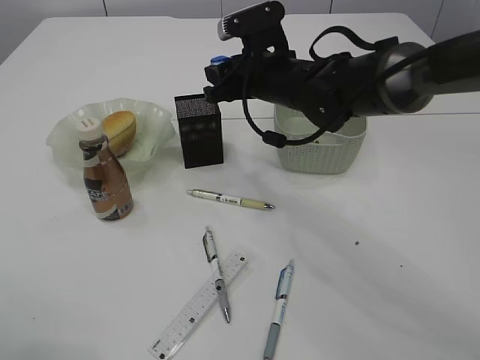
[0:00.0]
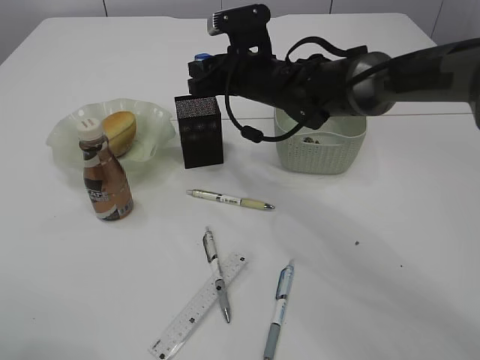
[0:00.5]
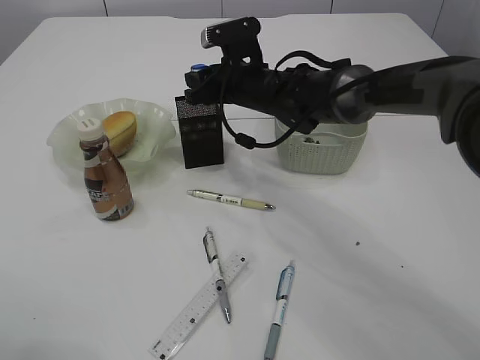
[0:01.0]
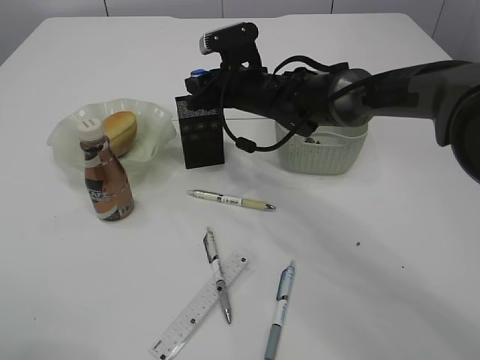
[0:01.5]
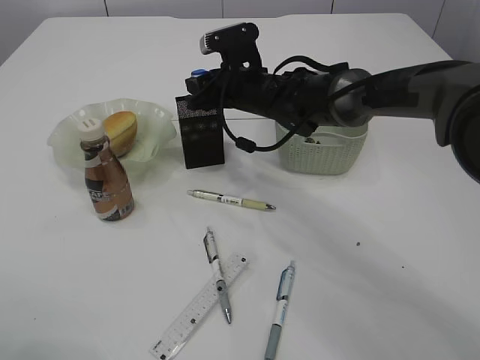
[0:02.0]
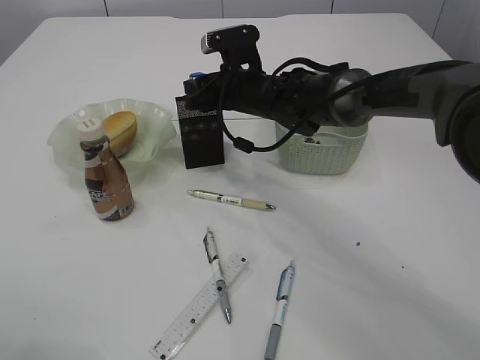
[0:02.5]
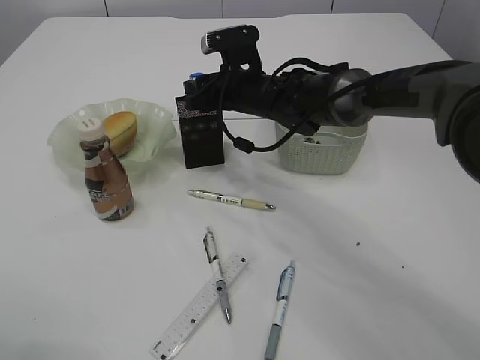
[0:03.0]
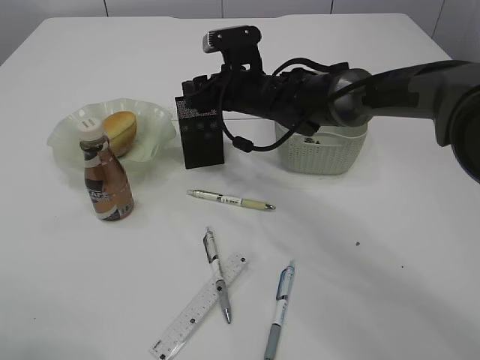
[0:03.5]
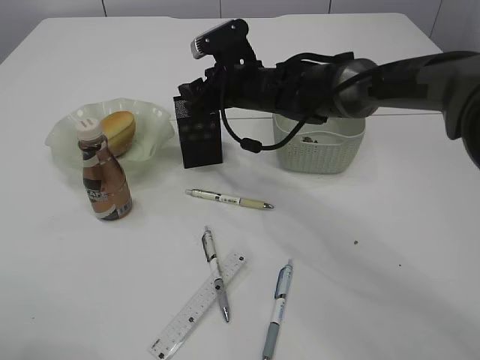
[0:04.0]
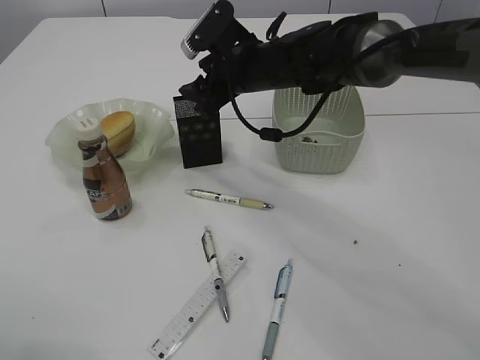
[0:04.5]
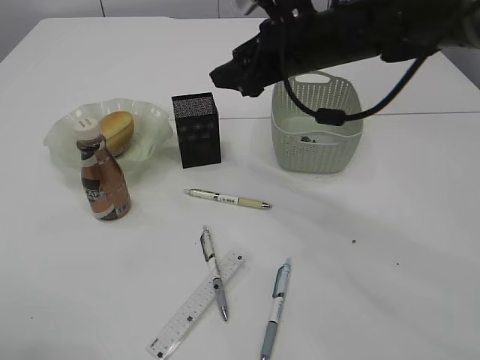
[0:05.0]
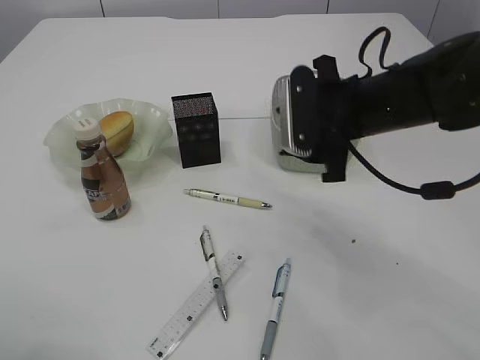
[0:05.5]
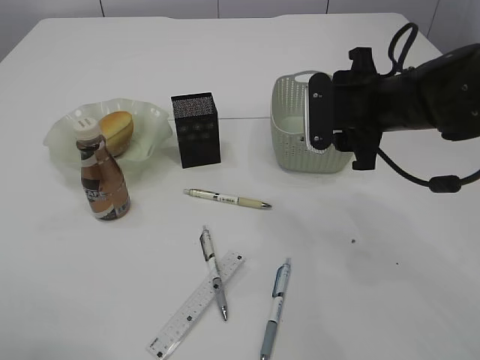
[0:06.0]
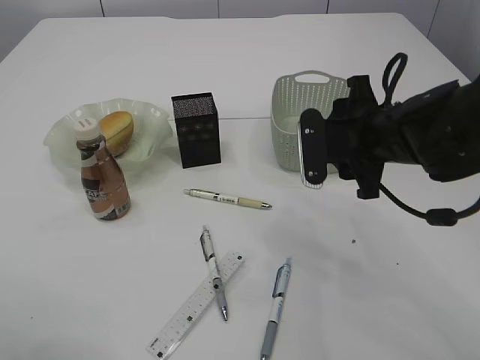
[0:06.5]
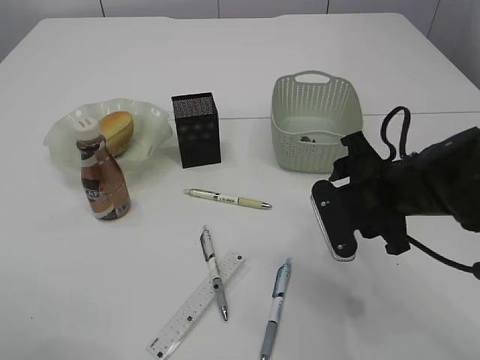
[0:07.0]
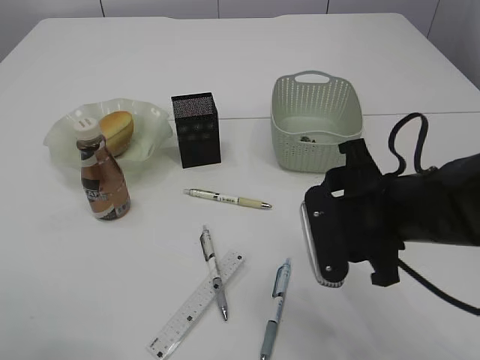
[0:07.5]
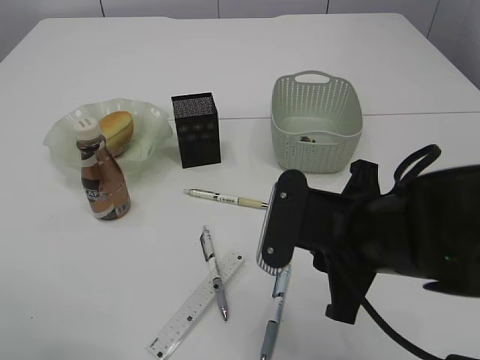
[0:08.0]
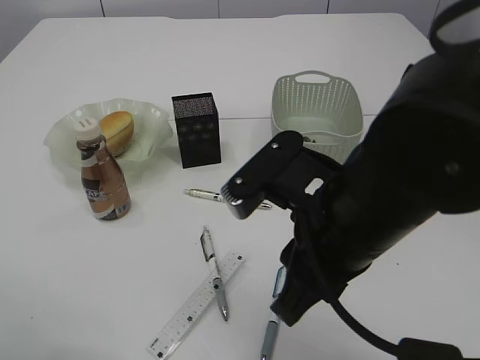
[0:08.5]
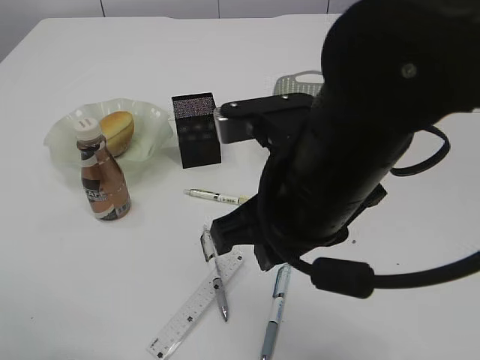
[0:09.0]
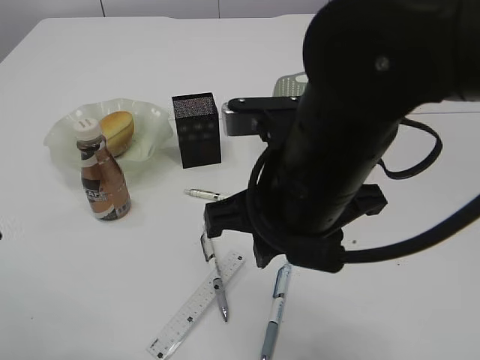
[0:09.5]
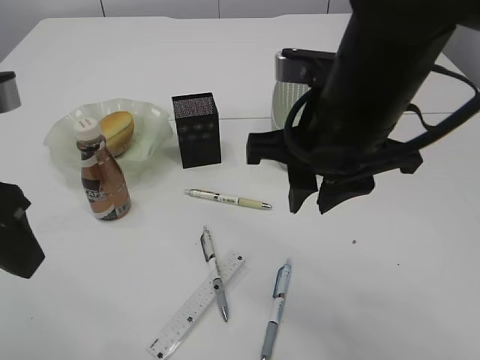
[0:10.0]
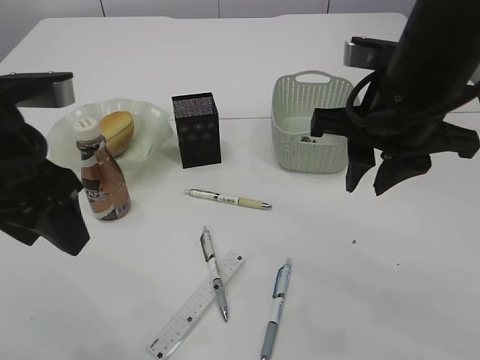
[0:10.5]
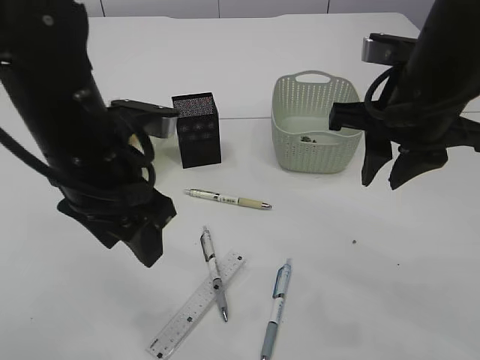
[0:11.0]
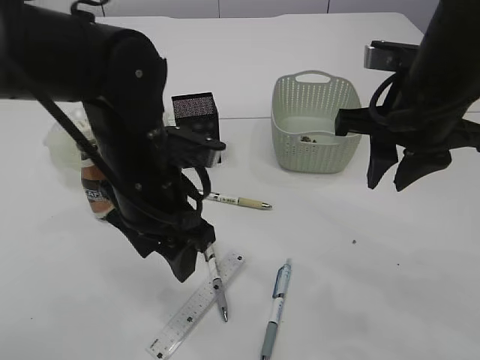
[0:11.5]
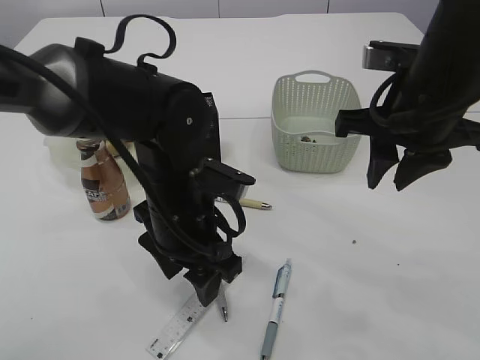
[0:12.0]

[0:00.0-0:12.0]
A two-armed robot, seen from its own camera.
Step, 0.0 to 4.5 s: Place the blue pencil sharpener into the pen holder.
0.0 to 2.0 s: The right gripper shifts by some 5 cm.
2.0 to 4.0 s: The grippers make only small movements.
4.0 to 6.0 s: The right gripper travels to the right and backward by roughly 20 cm.
6.0 to 8.0 s: The right gripper heads backward, covering approximately 15 cm, and closes up.
8.0 to 10.0 s: The right gripper moves upward, roughly 10 cm.
10.0 to 12.0 s: The left gripper travels to the right, downward and forward by roughly 25 cm. The right gripper travels to the right by about 10 cm.

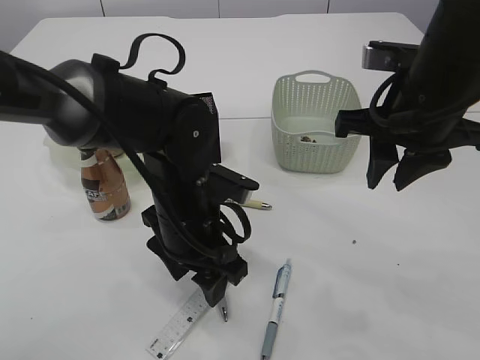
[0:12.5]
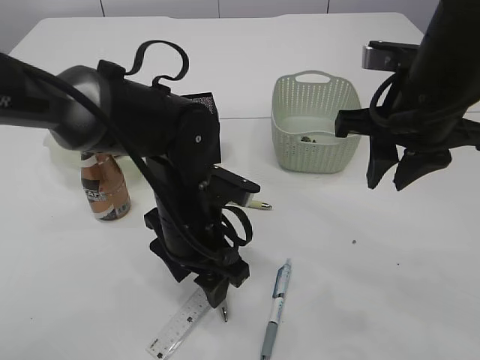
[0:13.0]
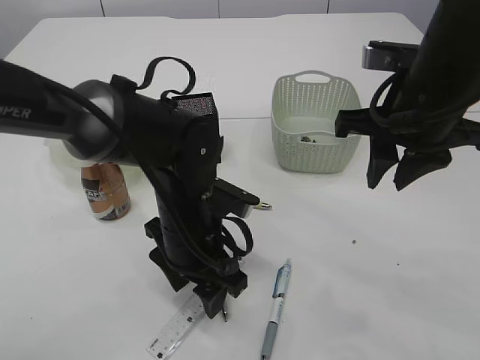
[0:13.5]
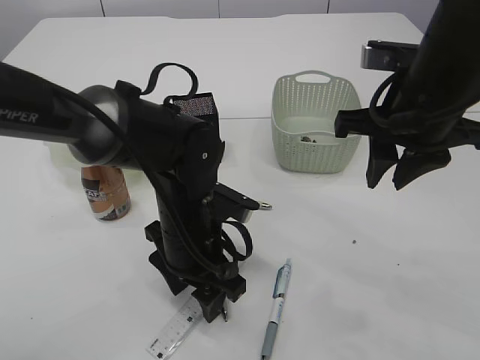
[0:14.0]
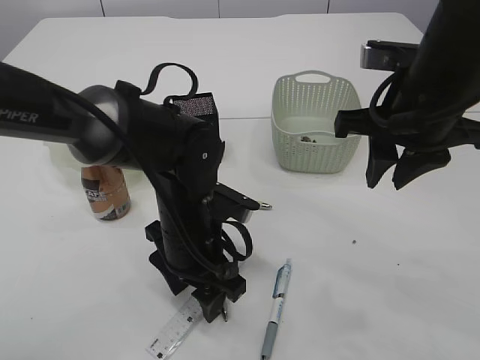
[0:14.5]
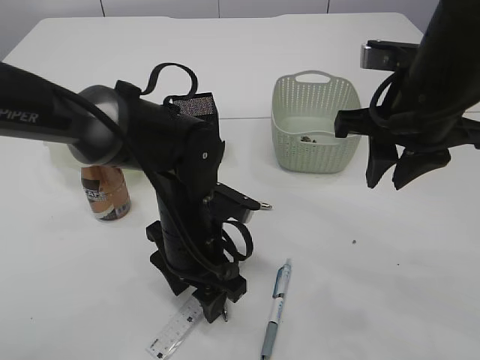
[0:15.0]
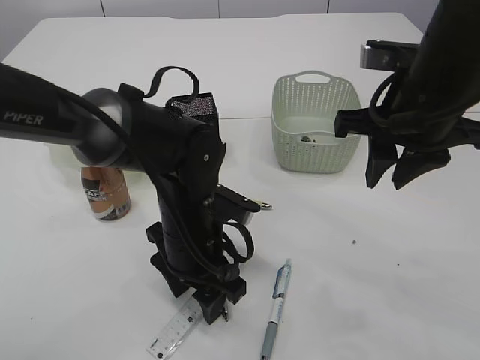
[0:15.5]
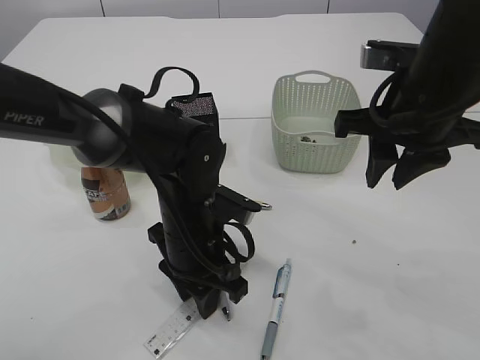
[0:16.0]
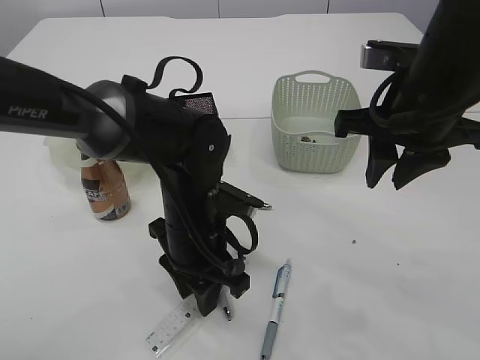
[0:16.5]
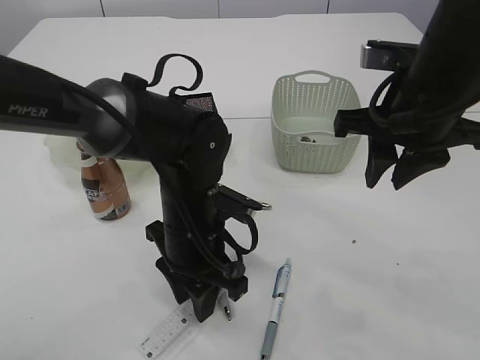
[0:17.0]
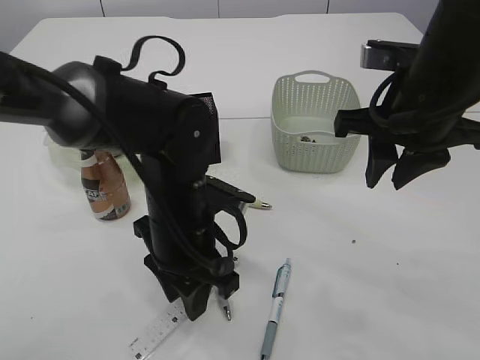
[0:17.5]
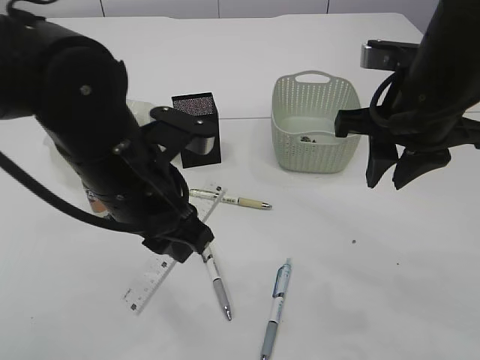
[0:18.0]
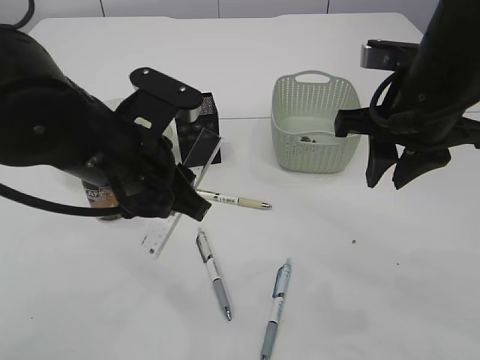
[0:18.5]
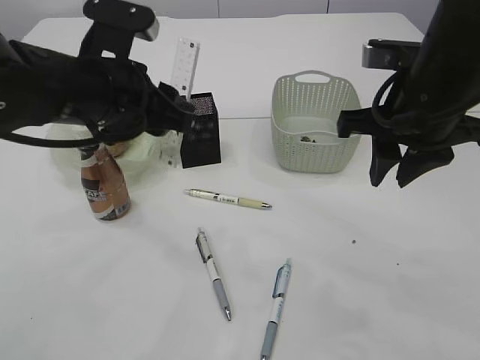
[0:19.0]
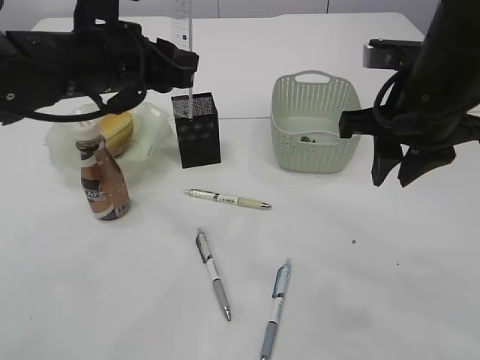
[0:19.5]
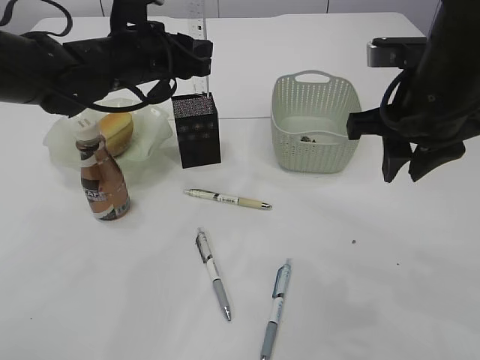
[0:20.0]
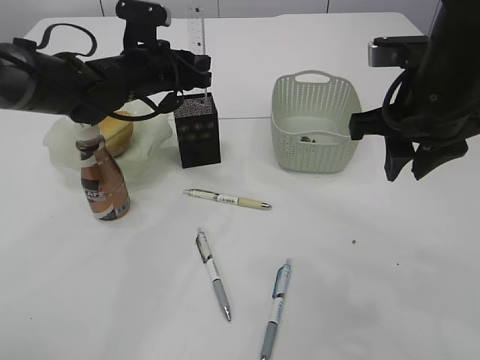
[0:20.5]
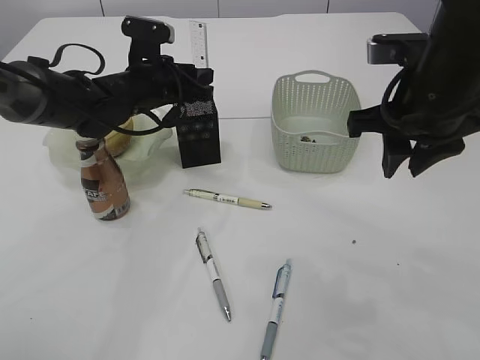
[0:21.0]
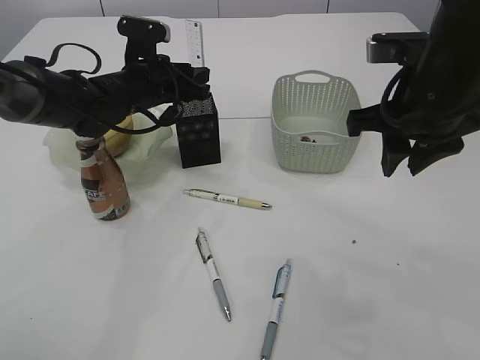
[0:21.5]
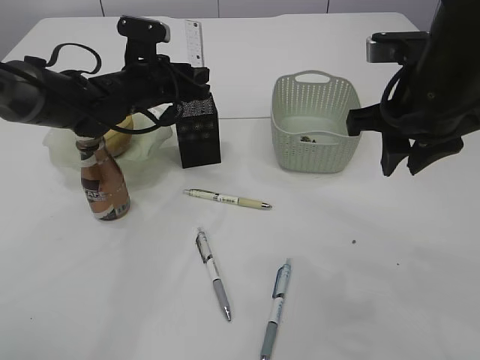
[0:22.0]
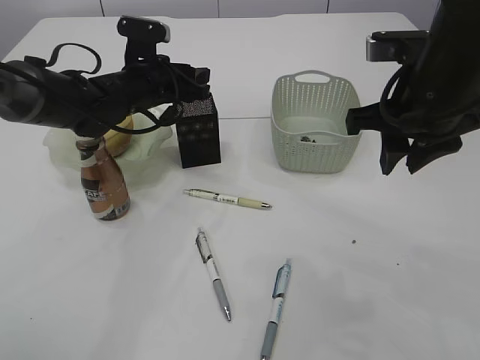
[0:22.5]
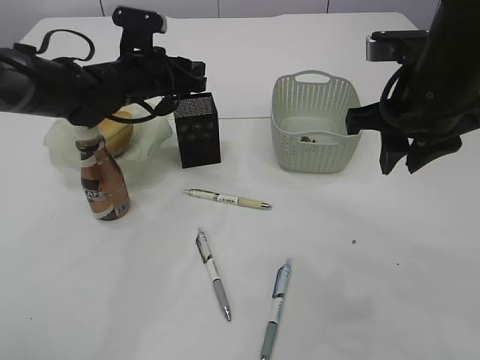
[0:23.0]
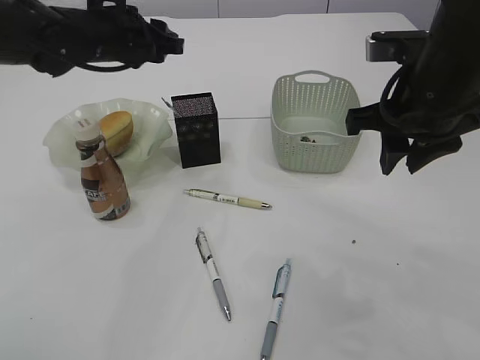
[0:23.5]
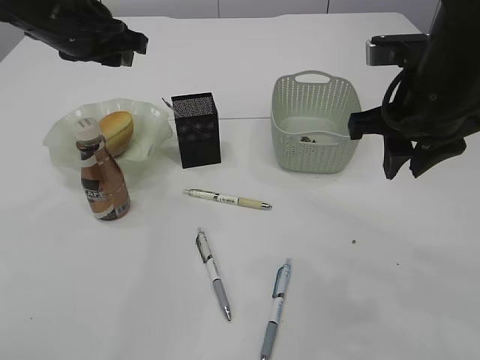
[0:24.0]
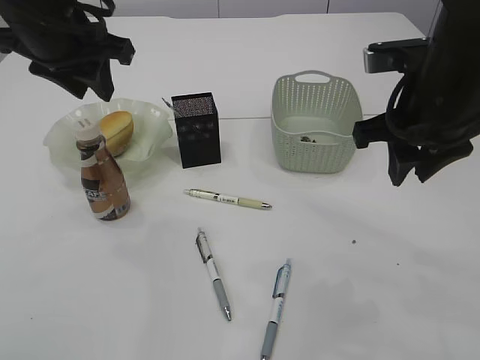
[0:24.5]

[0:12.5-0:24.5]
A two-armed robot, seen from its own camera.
Step, 12.5 to 18.0 s: pick up the ruler.
Step, 18.5 to 23.5 s: Place the ruler into the pen holder.
12.5 to 14.5 s: There are only small adjustments of the grippers.
14.5 to 16.5 s: The left gripper closes.
16.5 to 18.5 s: The left gripper goes roughly 10 cm upward and to the left.
18.5 to 20.5 s: The left gripper moves forward, about 20 cm.
20.5 to 22.5 s: The grippers move only a little.
22.5 to 24.5 s: The left gripper moves upward and backward, some 15 cm.

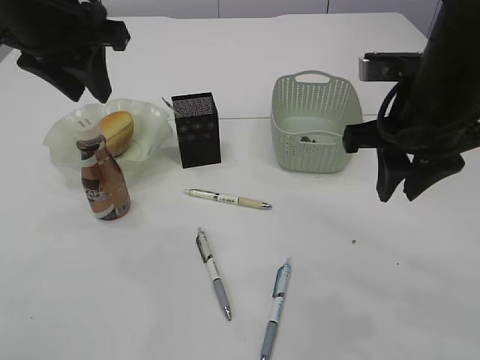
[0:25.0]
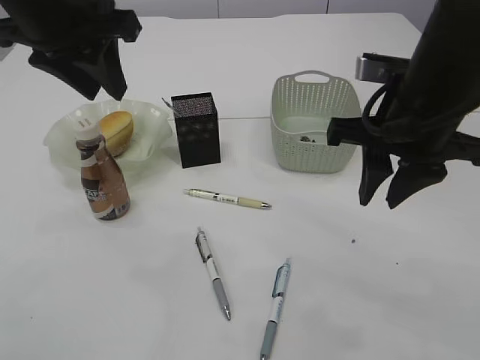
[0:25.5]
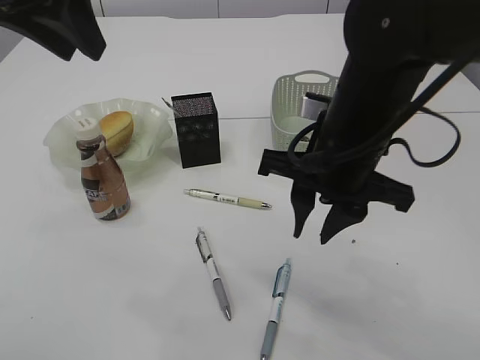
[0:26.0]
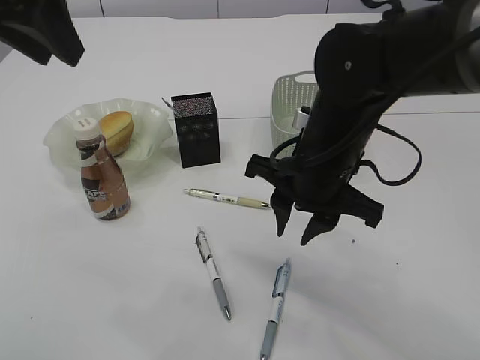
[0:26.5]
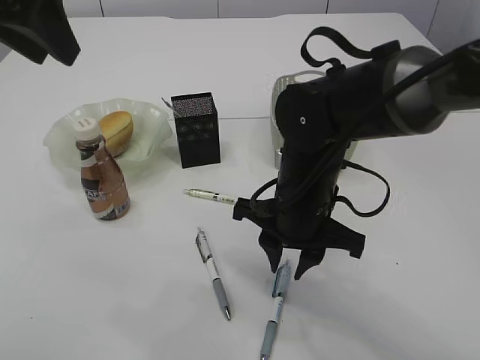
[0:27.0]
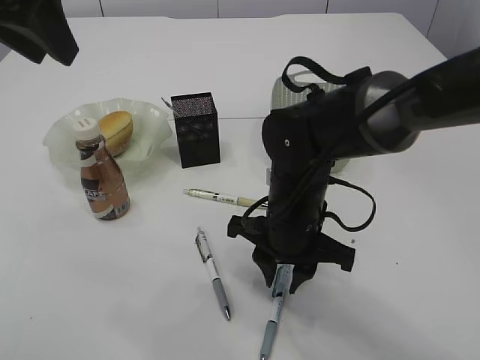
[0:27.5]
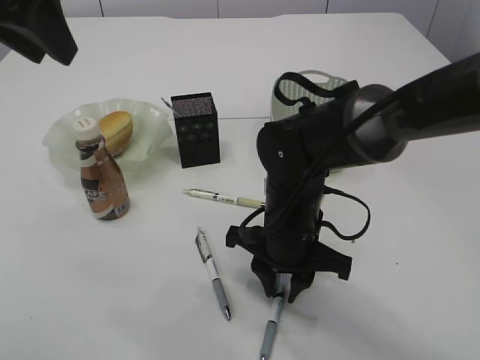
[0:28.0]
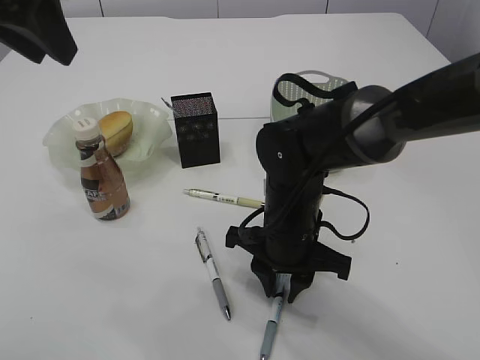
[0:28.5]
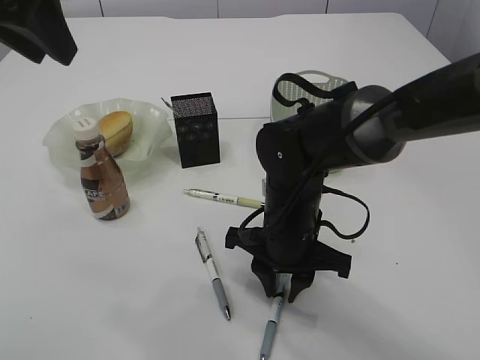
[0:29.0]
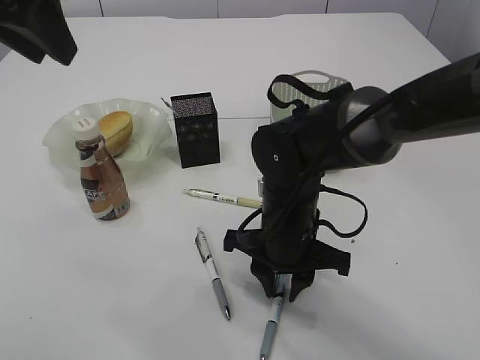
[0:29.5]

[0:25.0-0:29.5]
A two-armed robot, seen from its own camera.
25.0 to 27.0 s: The left gripper shifts roughly 10 cm backward and upward, while the right gripper heads downward and to the left, covering approximately 15 cm.
27.0 to 29.5 s: The grippers make only small movements.
